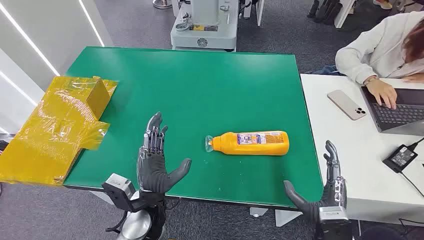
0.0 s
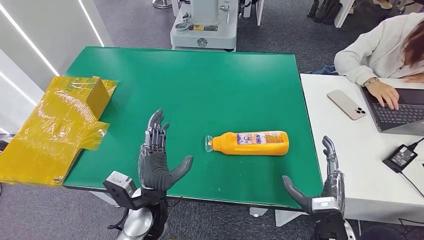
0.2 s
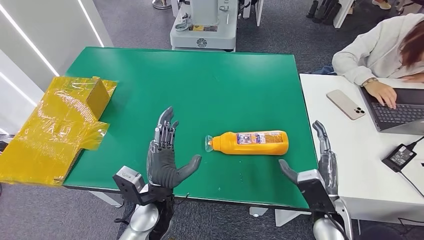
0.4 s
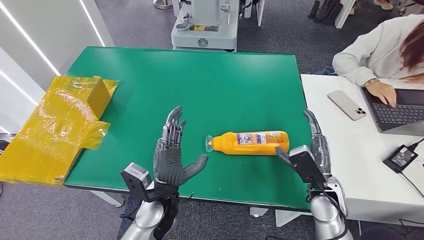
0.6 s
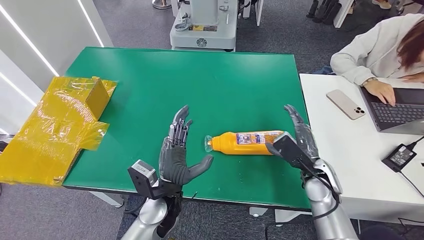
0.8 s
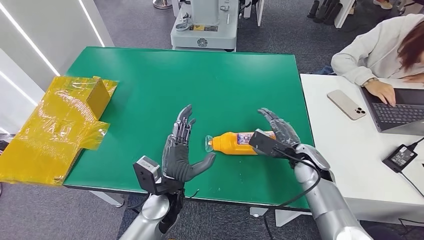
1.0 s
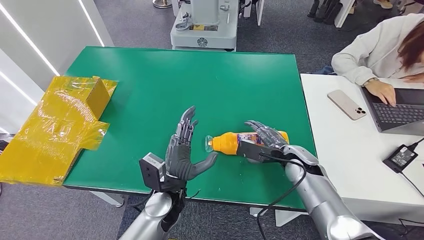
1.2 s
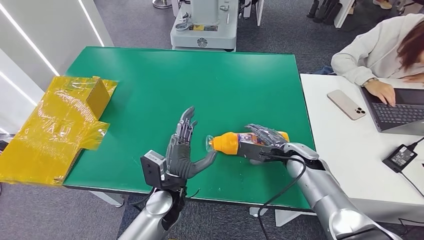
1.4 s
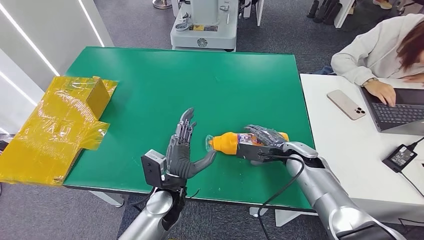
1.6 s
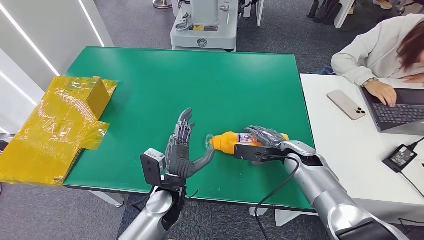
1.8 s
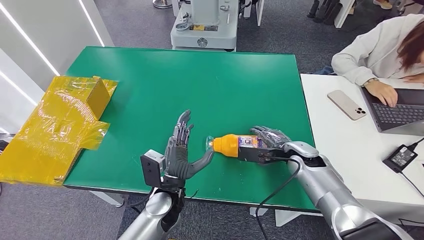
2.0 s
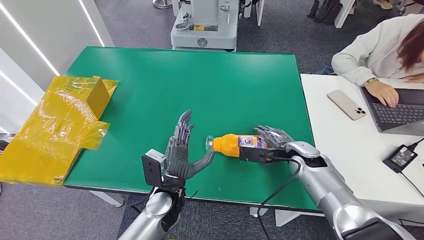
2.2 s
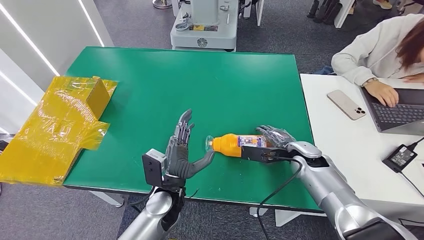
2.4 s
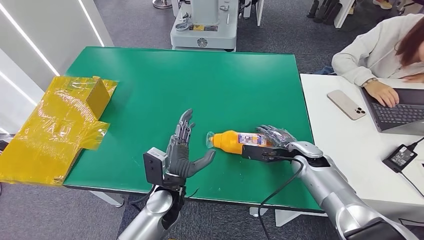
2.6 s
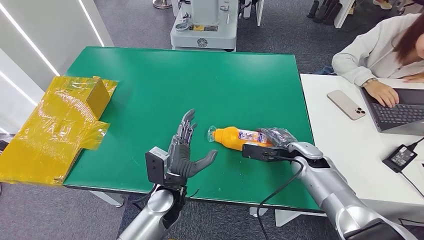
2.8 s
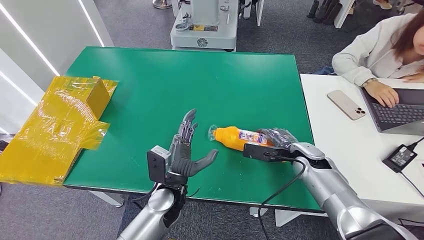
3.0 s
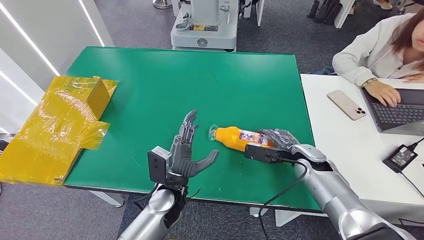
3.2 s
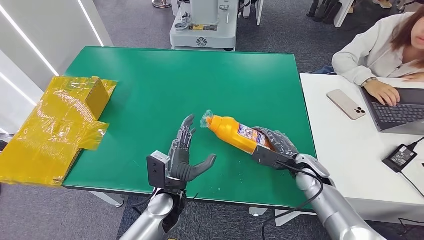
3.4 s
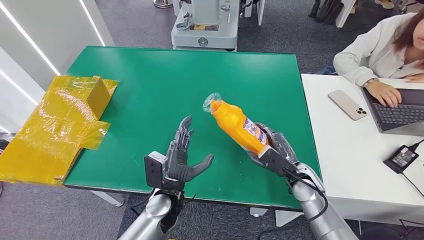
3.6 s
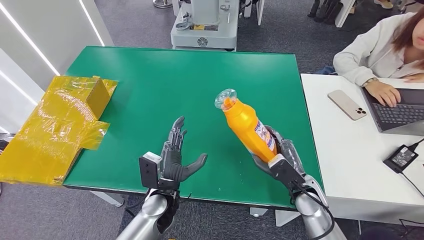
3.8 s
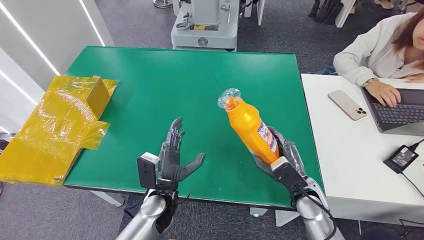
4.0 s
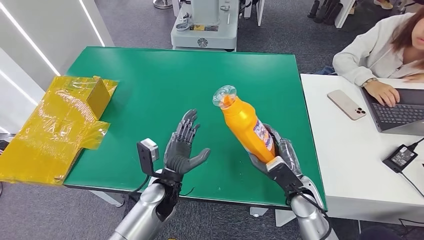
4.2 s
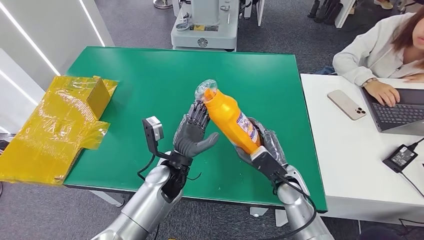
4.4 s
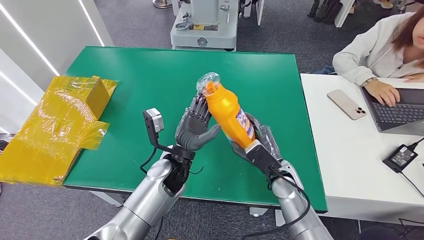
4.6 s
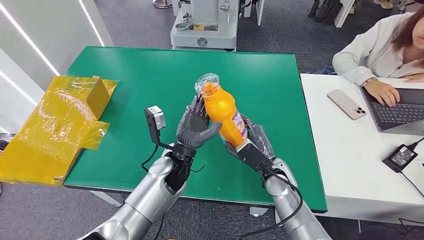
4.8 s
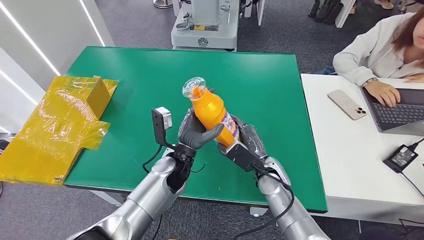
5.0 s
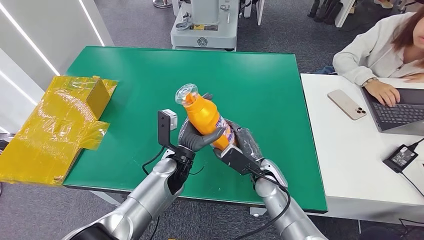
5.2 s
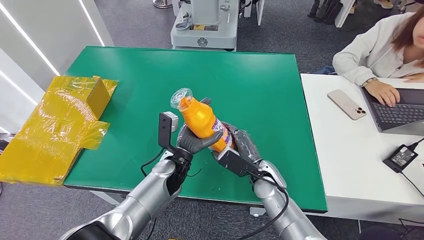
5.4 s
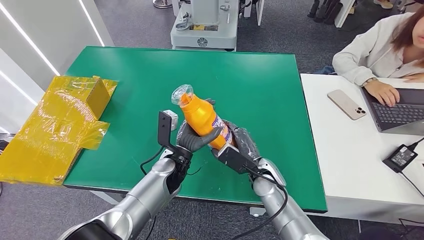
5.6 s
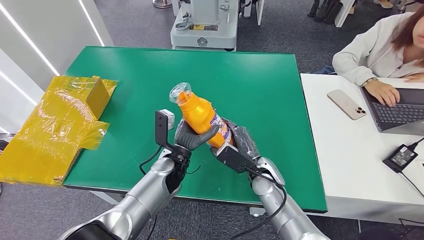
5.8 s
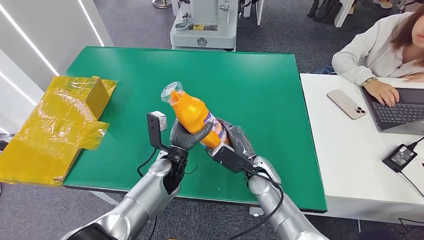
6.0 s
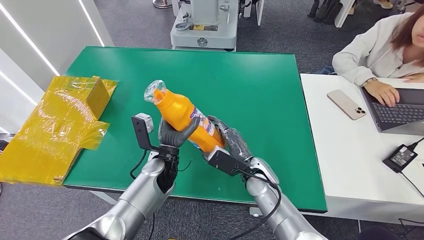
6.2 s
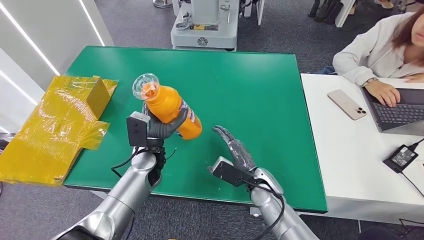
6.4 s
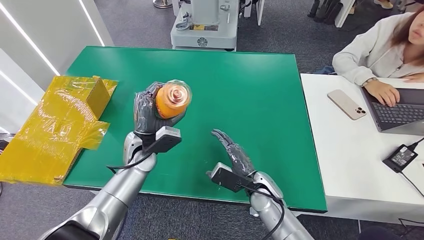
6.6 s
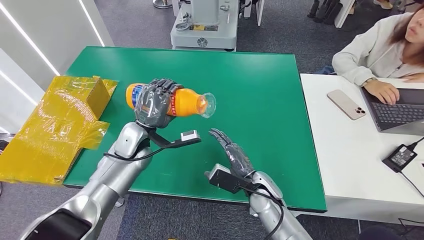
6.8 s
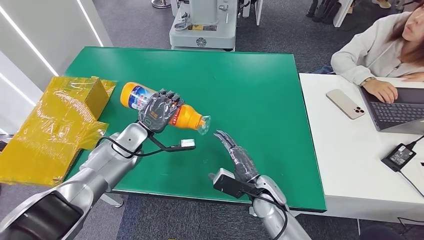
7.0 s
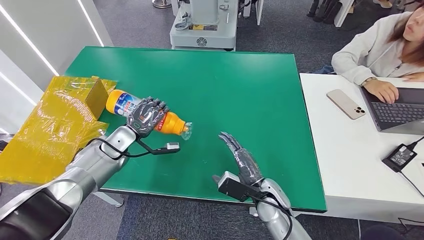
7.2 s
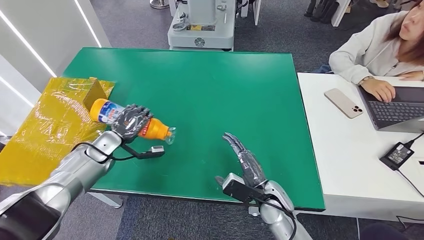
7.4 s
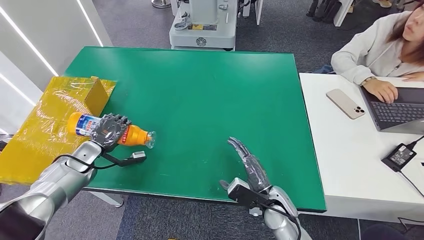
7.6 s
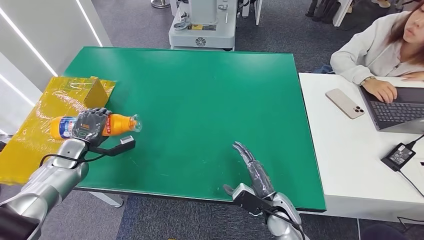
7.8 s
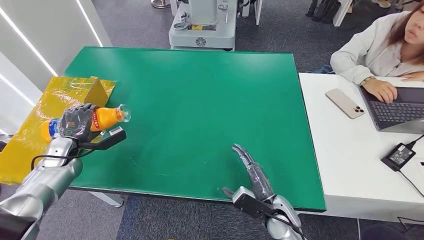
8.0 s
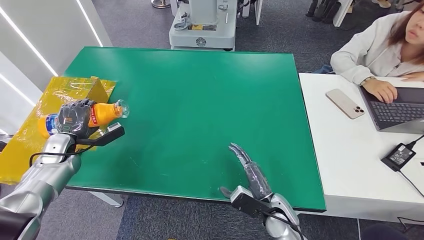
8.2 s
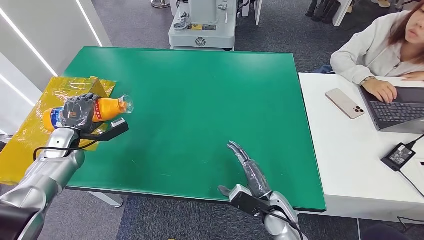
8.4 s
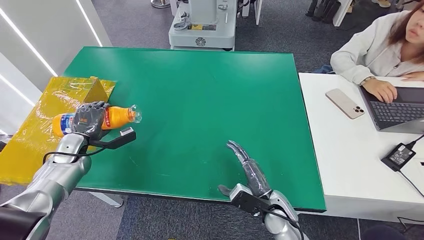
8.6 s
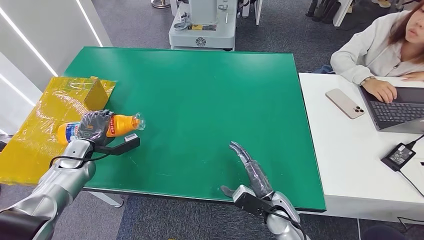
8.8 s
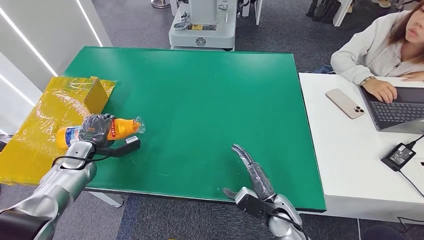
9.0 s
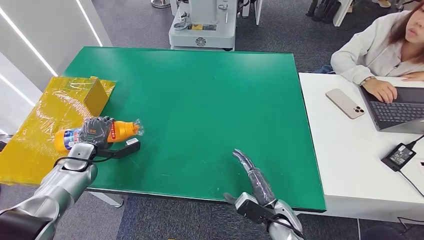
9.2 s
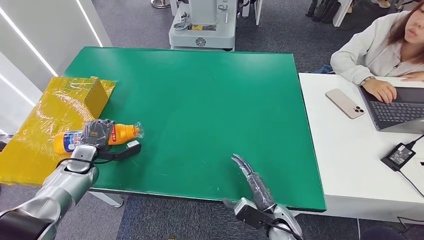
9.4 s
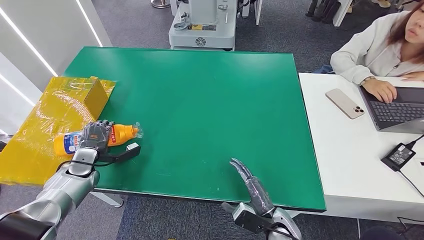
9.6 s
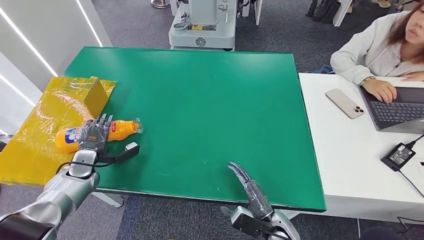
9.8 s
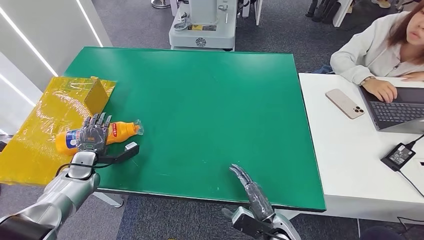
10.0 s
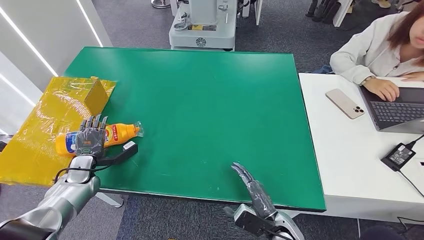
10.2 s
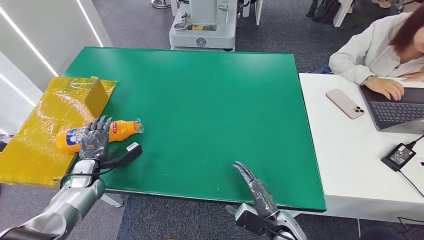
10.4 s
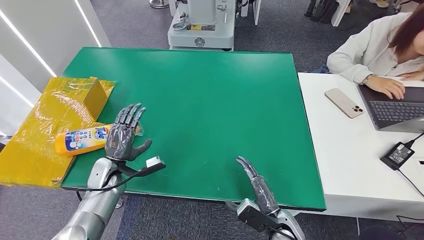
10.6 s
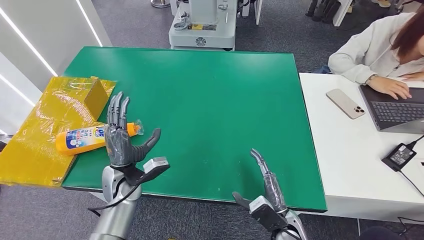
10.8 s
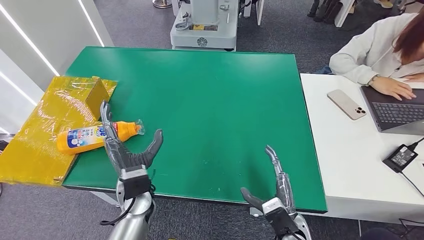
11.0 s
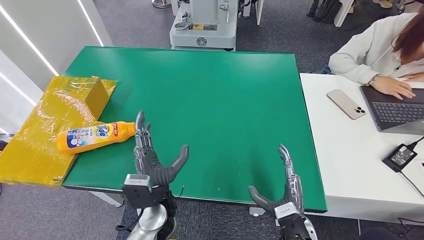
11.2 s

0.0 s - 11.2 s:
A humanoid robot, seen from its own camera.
Step, 0.0 s - 4.2 s: Pick up the bottle from the table.
Step, 5.0 s - 11.2 s: Turn the bottle to the front side.
1.6 s - 3.2 s: There are only small adjustments of the hands.
3.2 s - 4.8 s: The right hand goes some 15 cm to the left and backward; the left hand moves forward and upward, about 10 cm.
4.8 s - 6.4 s: The left hand heads to the left, covering about 10 cm.
8.0 s - 9.6 s: The left hand shifts by roughly 5 cm.
9.6 s - 11.2 s: The left hand heads to the right, covering some 30 cm, while the right hand travels upward by some 5 cm.
